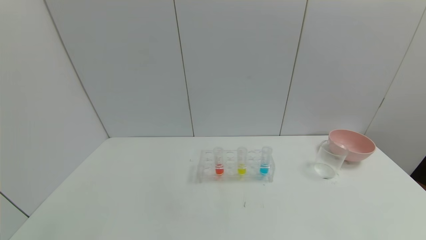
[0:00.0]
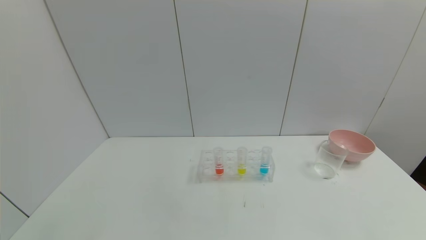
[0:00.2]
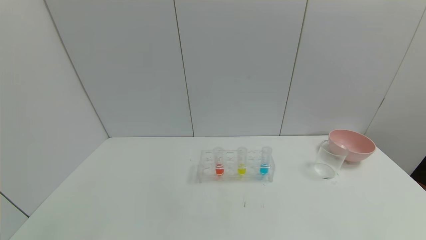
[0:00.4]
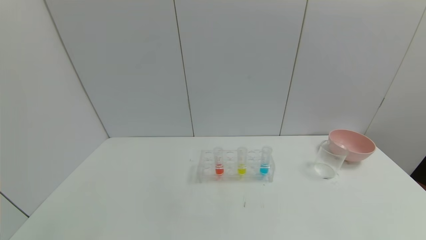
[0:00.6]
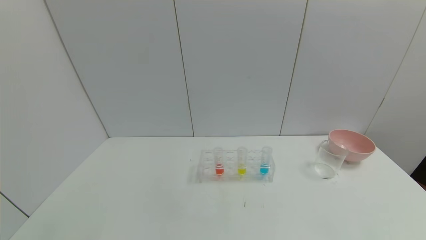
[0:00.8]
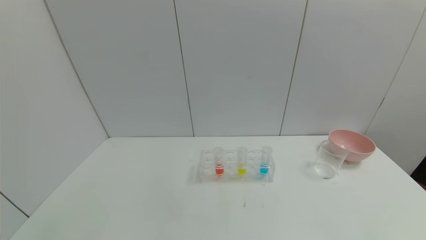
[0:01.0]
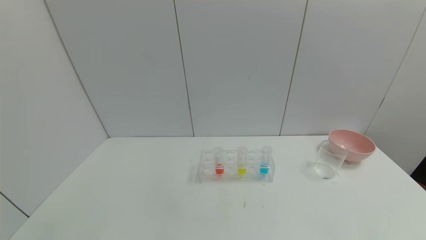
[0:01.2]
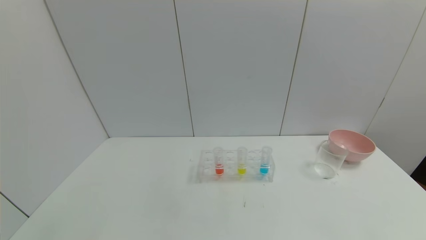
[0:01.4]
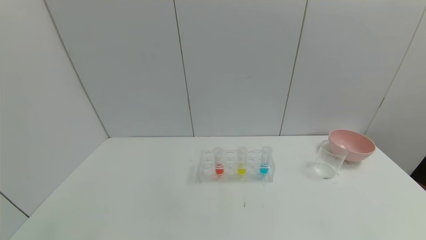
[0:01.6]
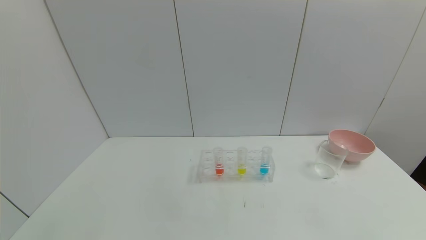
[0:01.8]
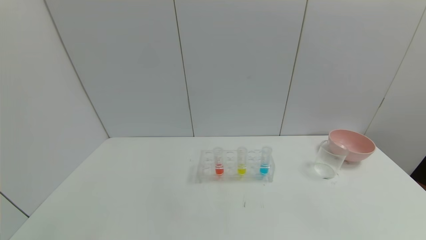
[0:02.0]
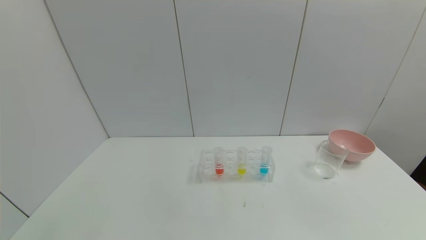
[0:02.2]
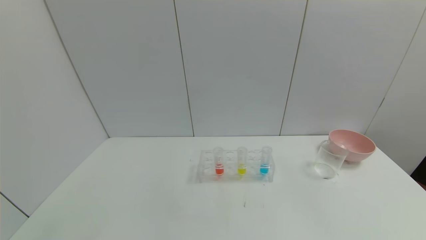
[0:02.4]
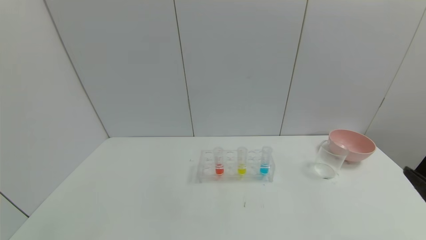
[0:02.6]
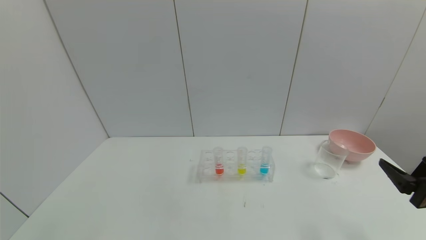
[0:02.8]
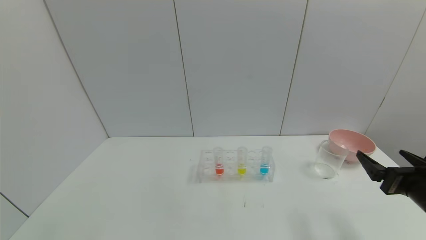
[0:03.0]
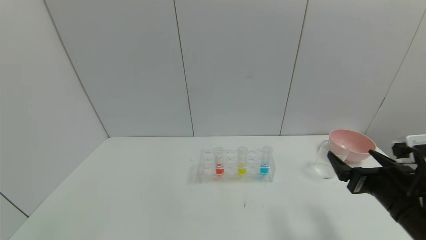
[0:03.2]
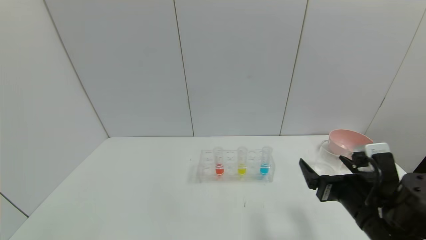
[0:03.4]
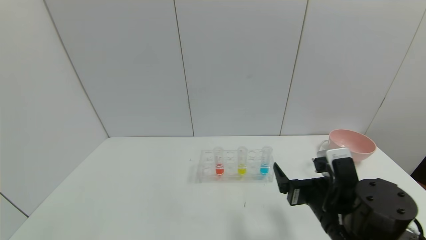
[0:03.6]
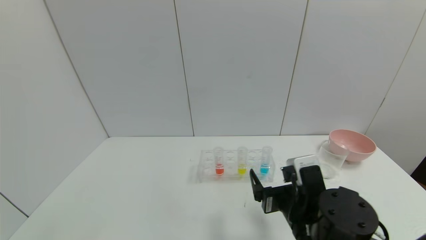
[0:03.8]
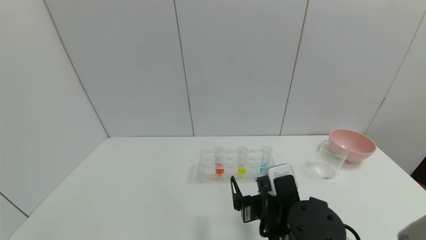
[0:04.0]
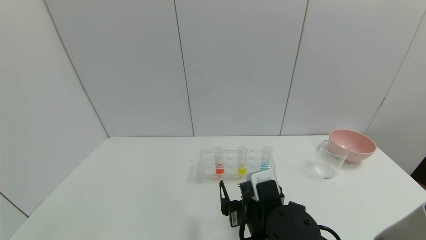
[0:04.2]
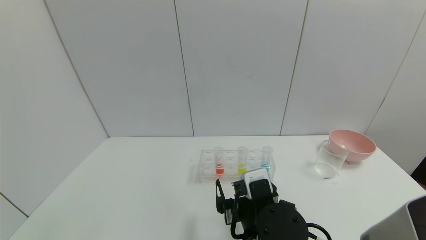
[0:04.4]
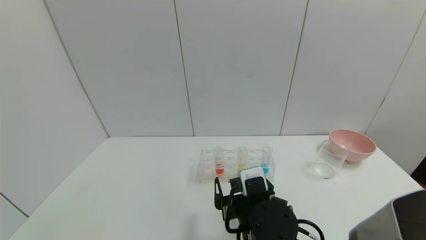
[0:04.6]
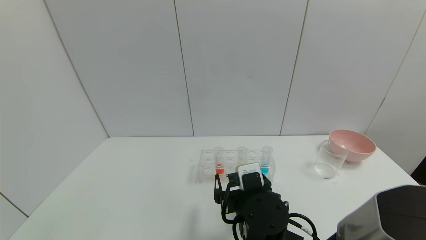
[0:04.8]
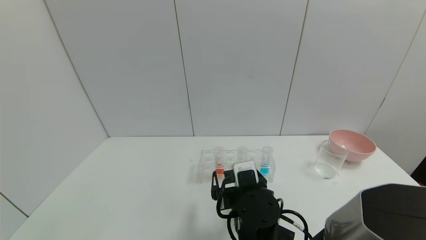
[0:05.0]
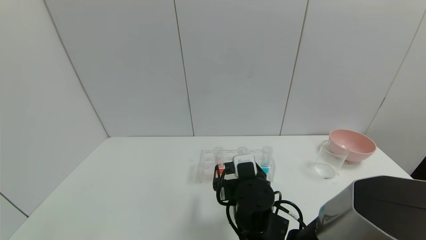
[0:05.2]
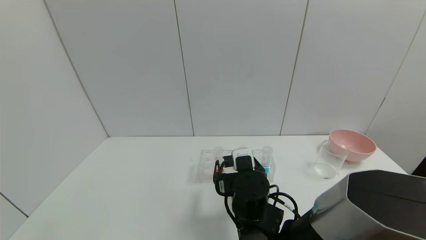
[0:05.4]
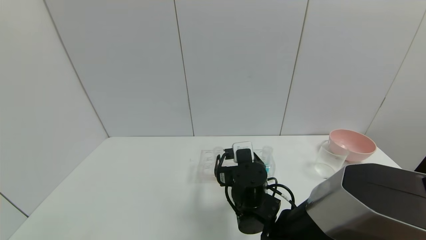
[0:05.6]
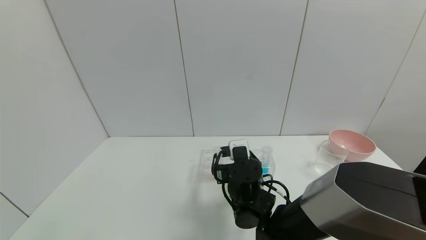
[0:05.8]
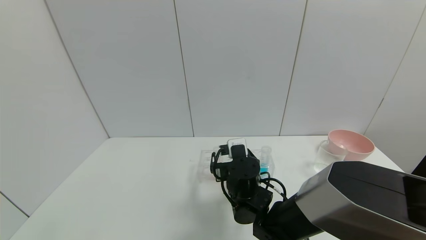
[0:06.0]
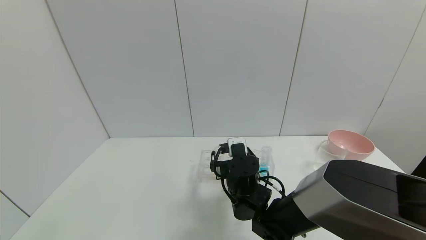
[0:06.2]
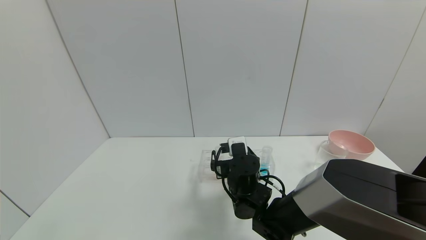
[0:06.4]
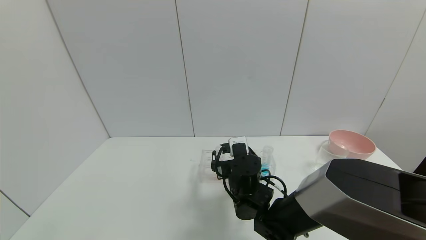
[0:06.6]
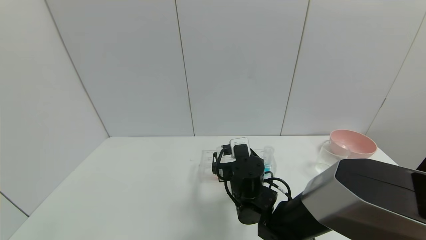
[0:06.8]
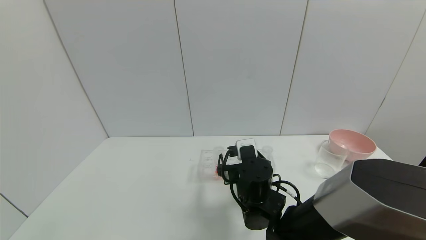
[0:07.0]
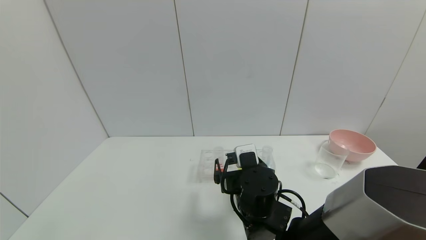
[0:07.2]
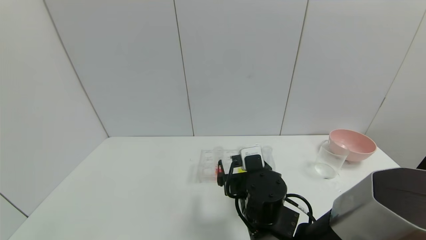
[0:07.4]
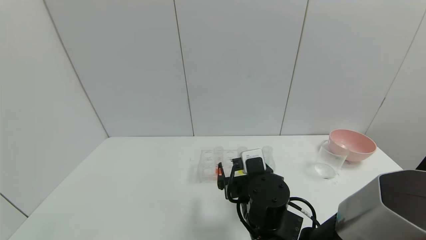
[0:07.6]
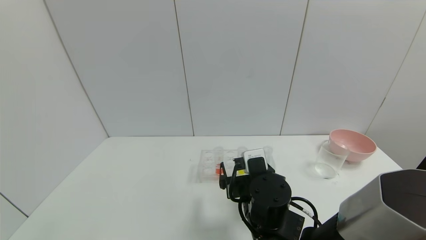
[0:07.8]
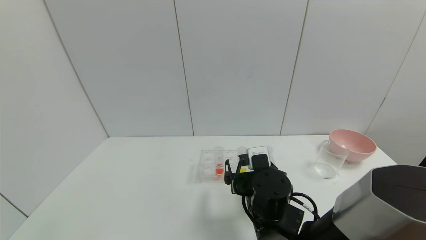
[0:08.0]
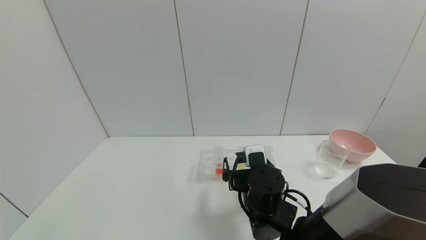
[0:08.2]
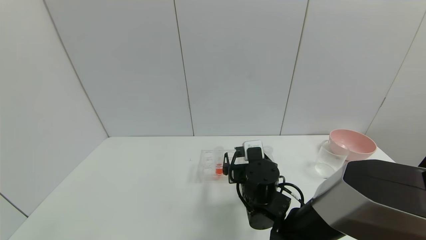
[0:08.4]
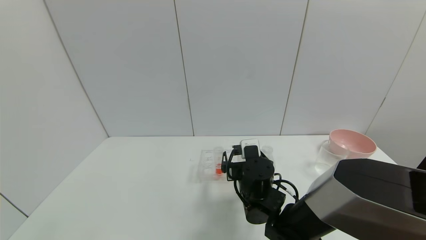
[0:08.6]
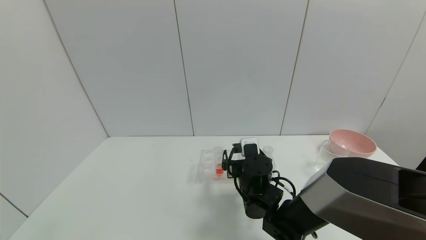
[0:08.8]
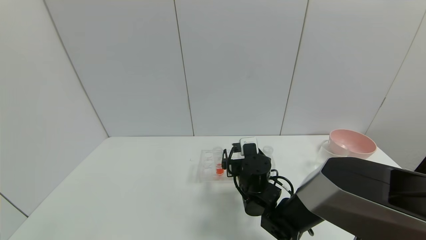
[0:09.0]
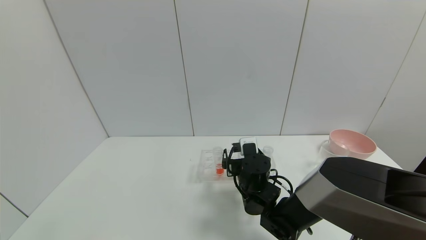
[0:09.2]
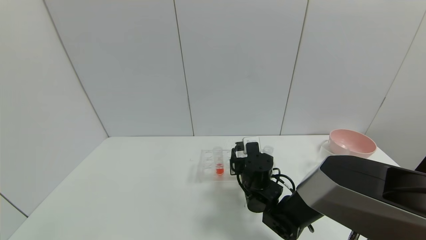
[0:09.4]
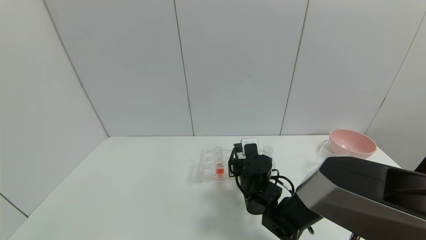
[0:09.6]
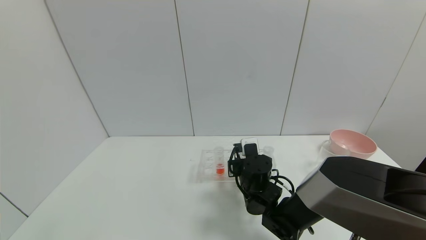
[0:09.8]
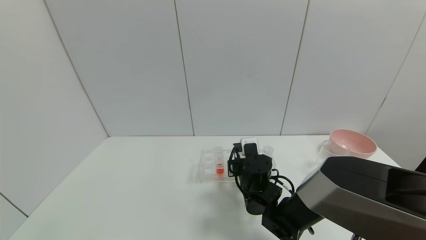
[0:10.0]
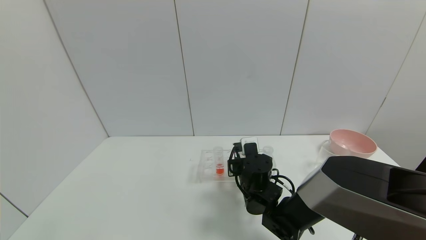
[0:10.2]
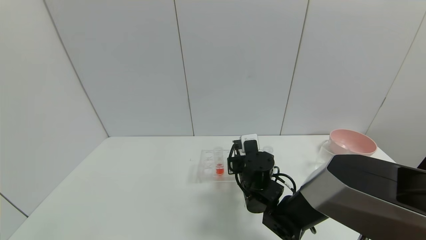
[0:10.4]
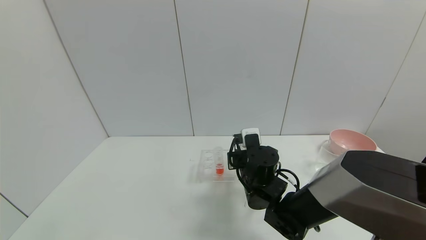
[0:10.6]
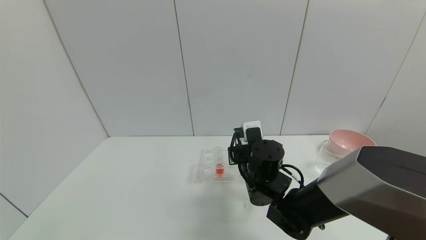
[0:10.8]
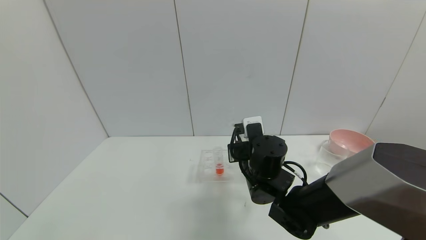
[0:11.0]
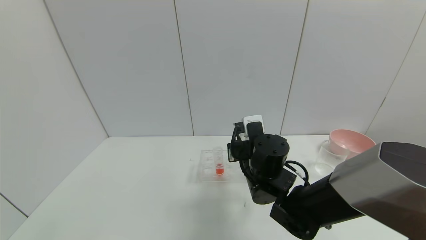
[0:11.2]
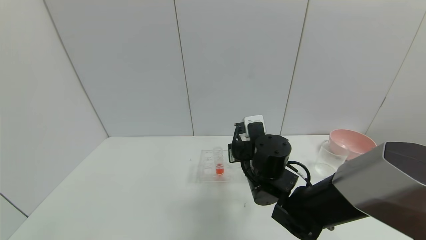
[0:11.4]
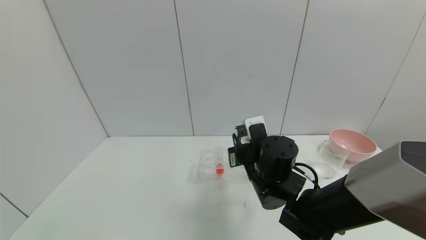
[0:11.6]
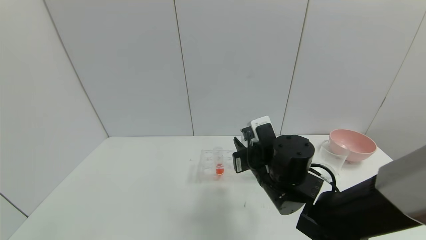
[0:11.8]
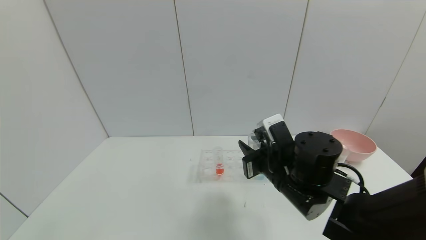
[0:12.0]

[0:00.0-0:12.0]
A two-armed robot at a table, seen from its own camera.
Task of the whole recording: pick up the test tube with yellow pigment and the test tube with blue pigment by grippers and pour them into the beaker.
0:00.0 to 0:01.6: Neither gripper changes place.
0:01.6 to 0:03.0: The right gripper is displaced forward by about 20 cm.
0:03.0 to 0:04.4: The right gripper travels to the left by roughly 25 cm.
0:04.4 to 0:06.0: The right gripper heads forward, covering some 10 cm.
0:06.0 to 0:07.6: The right gripper is displaced backward by about 5 cm.
0:07.6 to 0:09.0: The right gripper moves forward, roughly 10 cm.
0:09.0 to 0:10.4: The right gripper closes.
0:10.4 to 0:12.0: The right gripper travels upward, backward and to the right by approximately 10 cm.

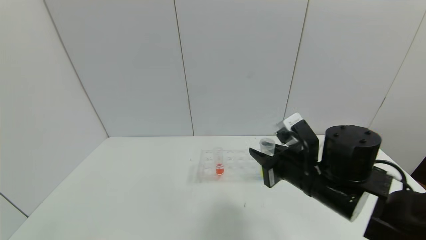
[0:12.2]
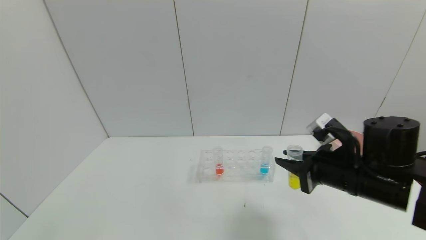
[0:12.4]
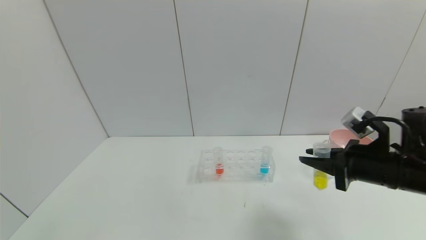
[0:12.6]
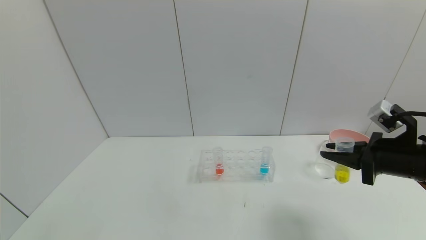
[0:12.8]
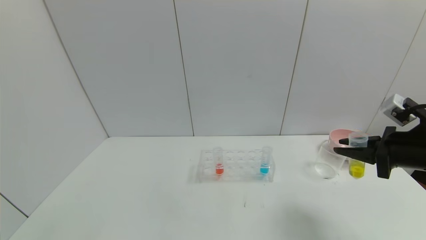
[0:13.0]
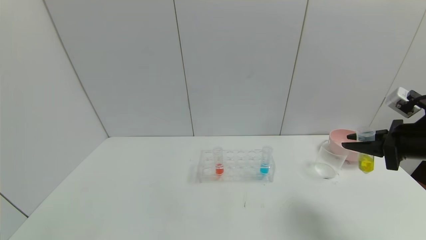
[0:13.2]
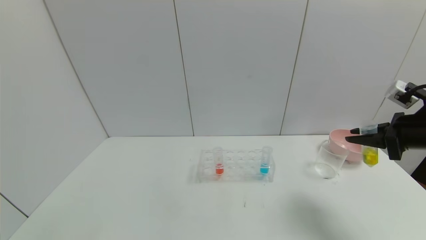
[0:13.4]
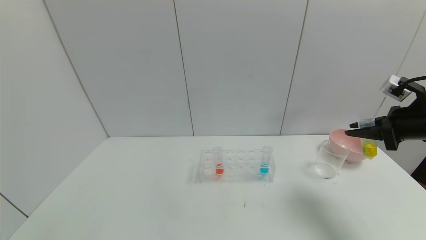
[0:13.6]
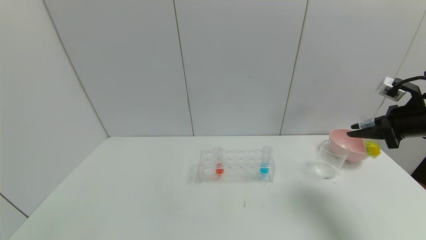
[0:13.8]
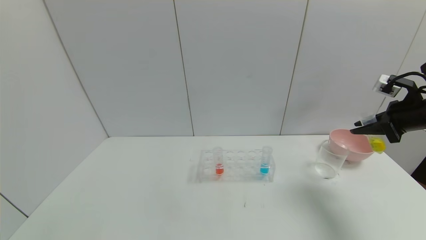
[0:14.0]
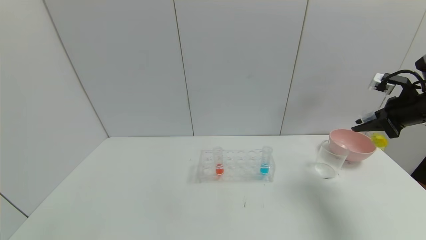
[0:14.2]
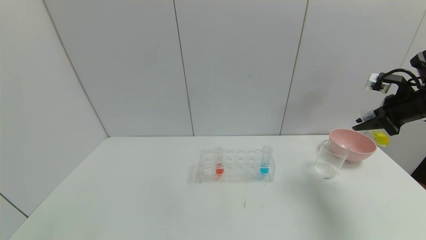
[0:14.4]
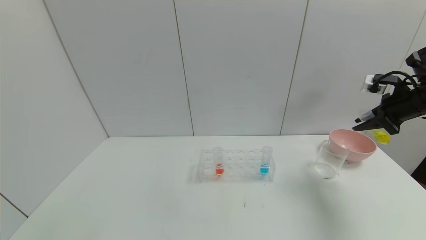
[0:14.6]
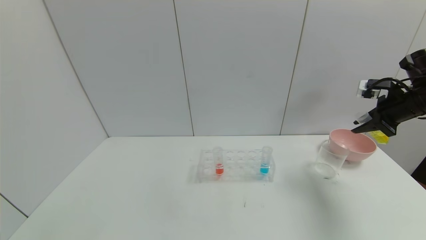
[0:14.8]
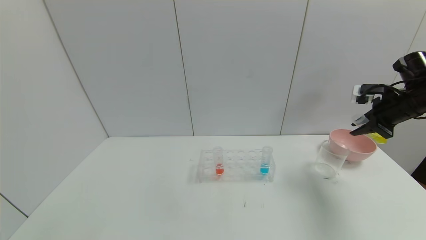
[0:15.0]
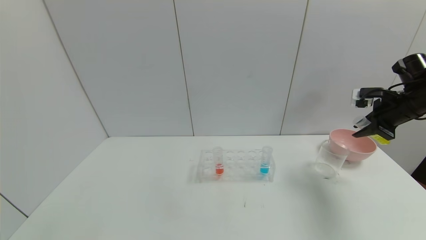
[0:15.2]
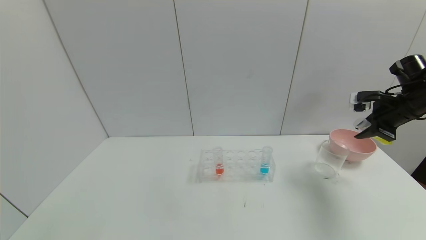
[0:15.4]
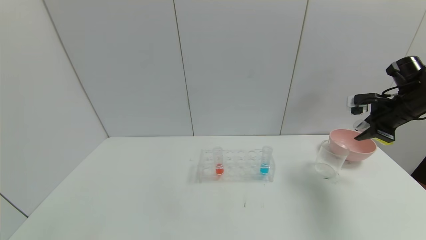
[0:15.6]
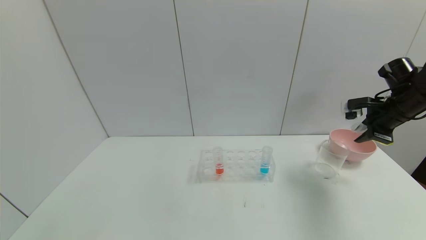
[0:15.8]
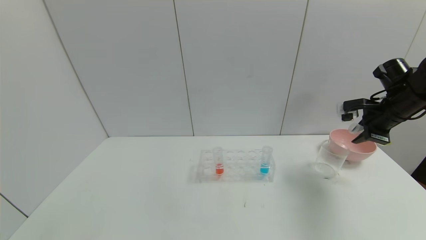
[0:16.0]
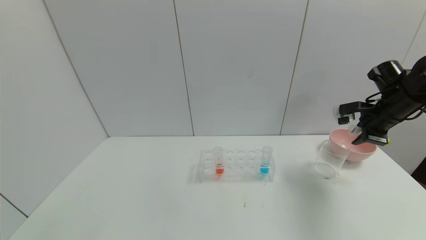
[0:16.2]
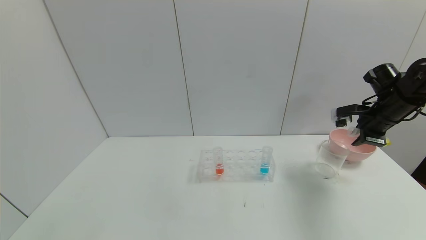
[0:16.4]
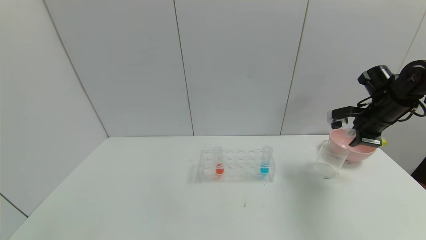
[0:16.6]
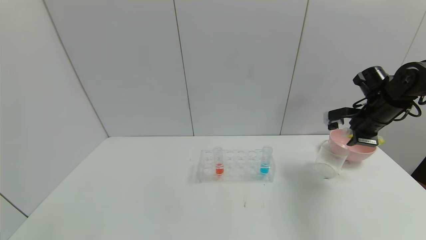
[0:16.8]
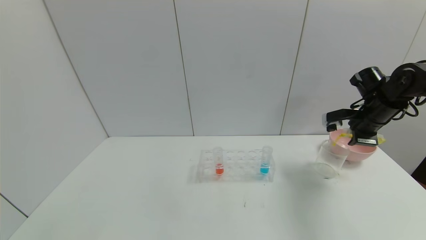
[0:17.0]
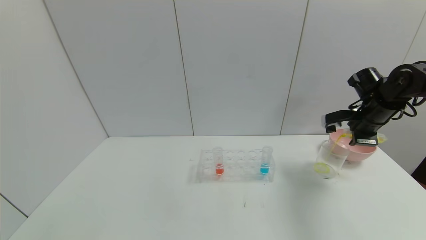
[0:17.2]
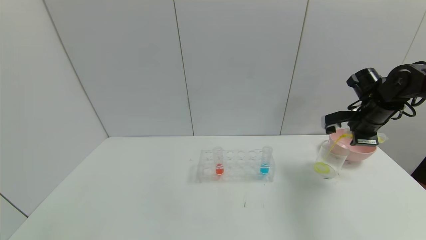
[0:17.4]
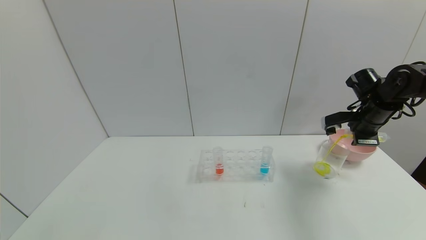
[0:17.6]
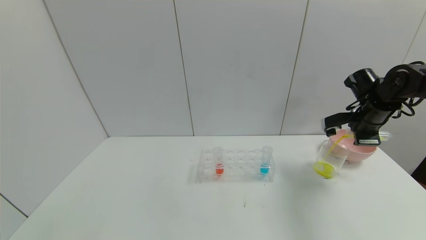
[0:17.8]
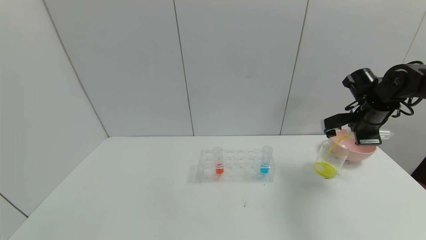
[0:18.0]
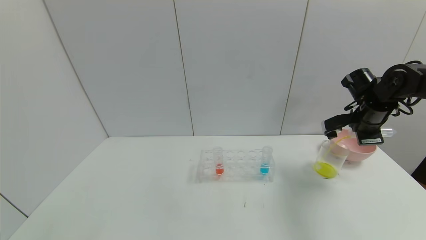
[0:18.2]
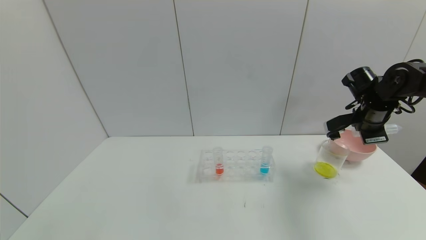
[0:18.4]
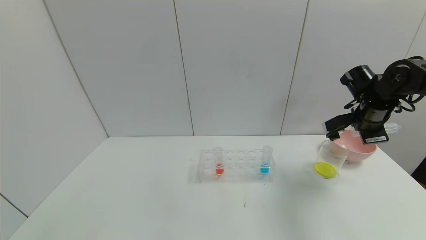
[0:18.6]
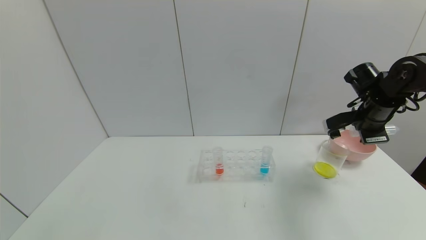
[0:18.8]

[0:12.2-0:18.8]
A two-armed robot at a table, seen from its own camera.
Task of the whole recording: pick up the test tube with yellow pigment and the test tube with blue pigment by grippers and pour them into the beaker.
0:12.2 to 0:13.8: The right gripper travels to the right by roughly 25 cm.
0:13.8 to 0:15.4: The right gripper moves forward, about 5 cm.
0:15.4 to 0:17.2: The right gripper heads to the left, covering about 5 cm.
0:17.2 to 0:18.8: The grippers move only a little.
